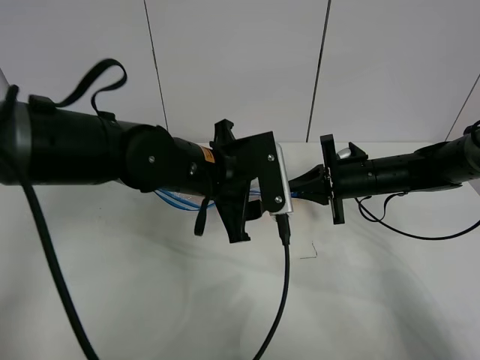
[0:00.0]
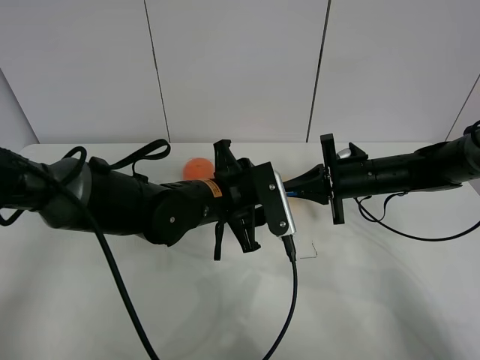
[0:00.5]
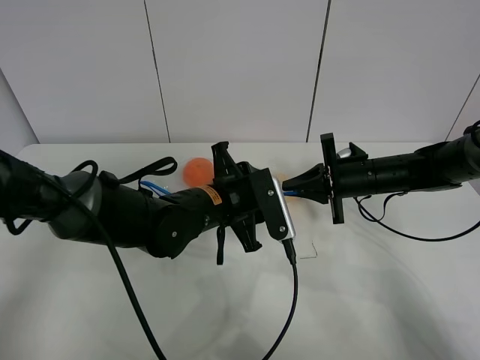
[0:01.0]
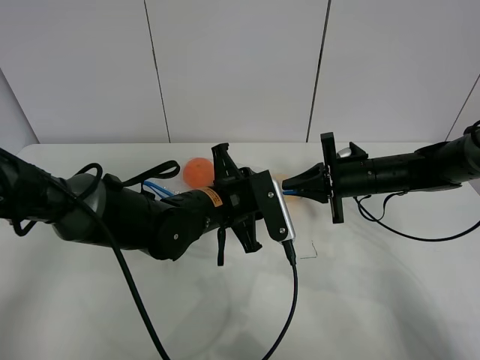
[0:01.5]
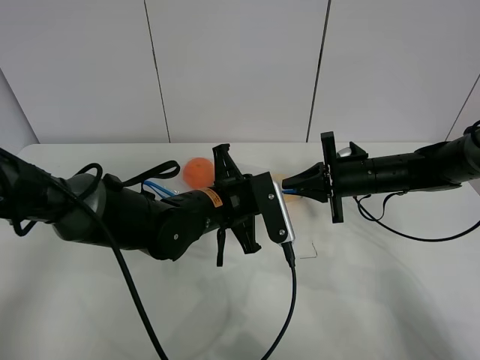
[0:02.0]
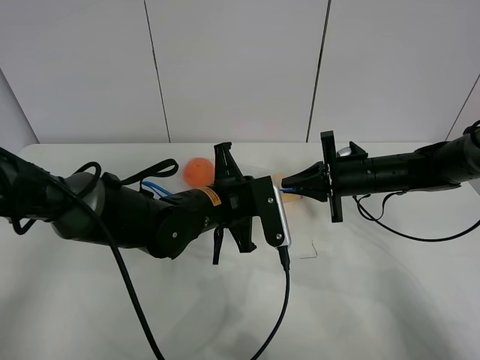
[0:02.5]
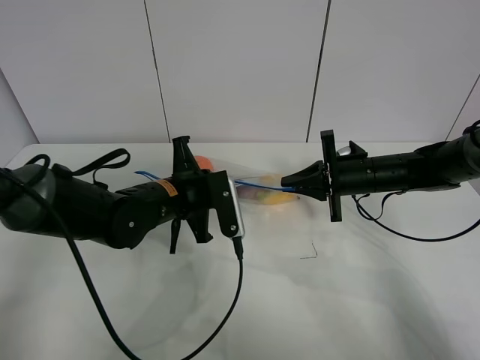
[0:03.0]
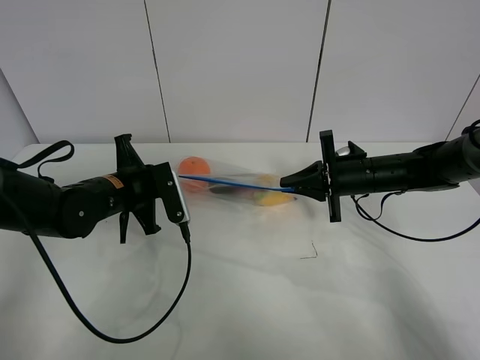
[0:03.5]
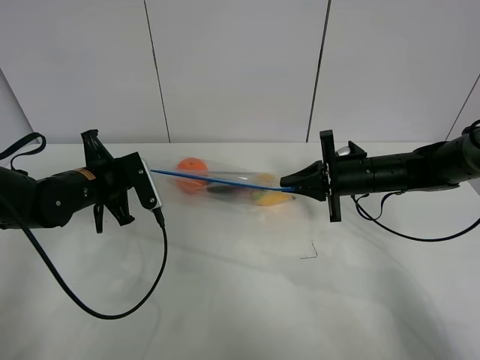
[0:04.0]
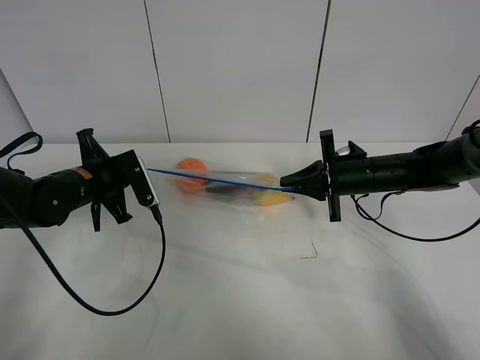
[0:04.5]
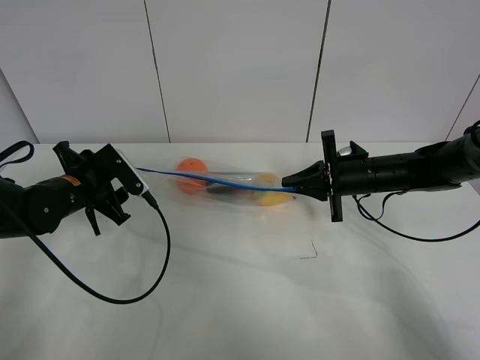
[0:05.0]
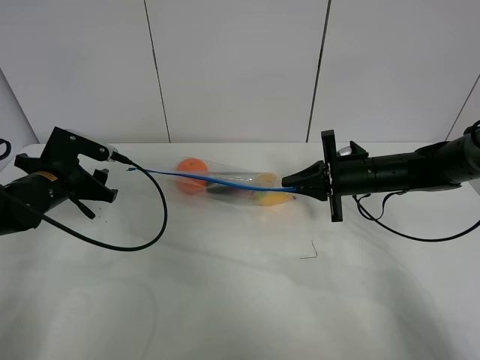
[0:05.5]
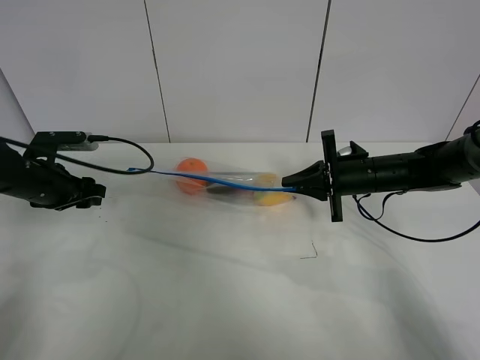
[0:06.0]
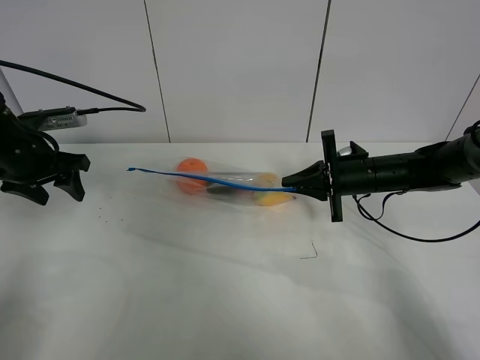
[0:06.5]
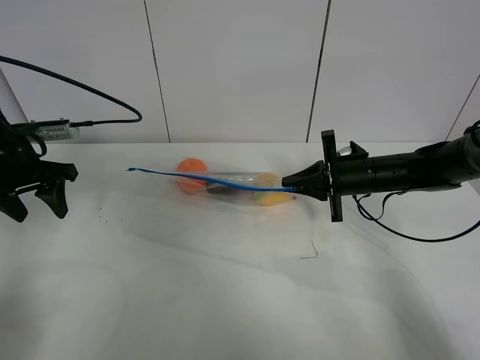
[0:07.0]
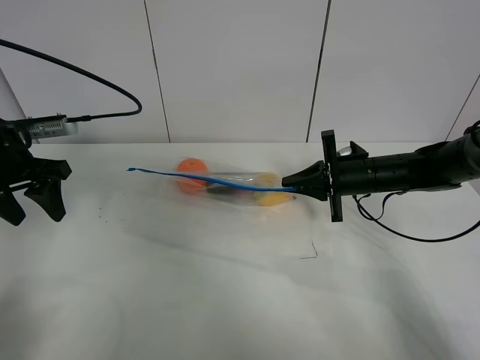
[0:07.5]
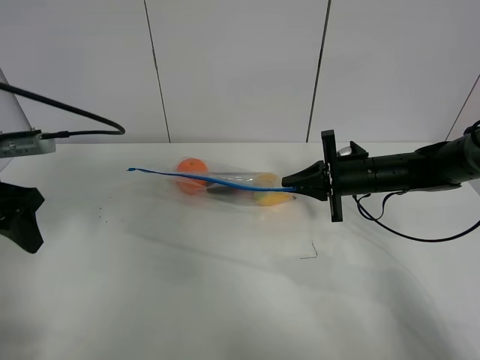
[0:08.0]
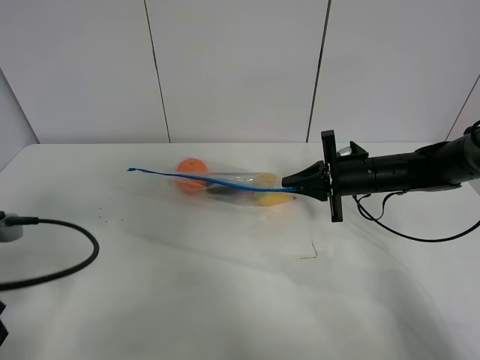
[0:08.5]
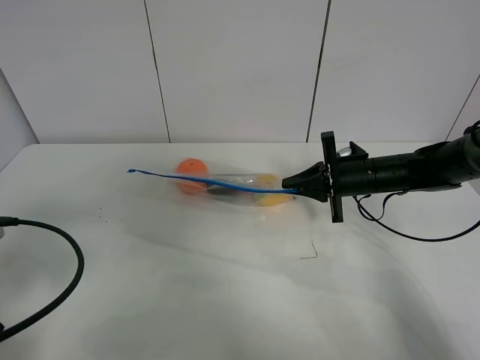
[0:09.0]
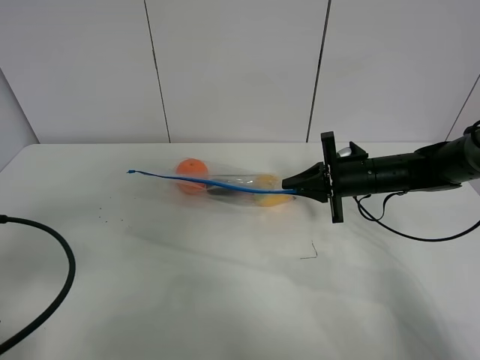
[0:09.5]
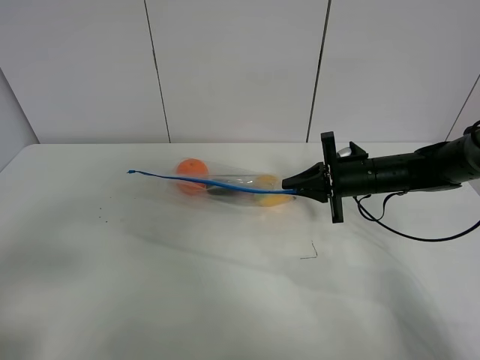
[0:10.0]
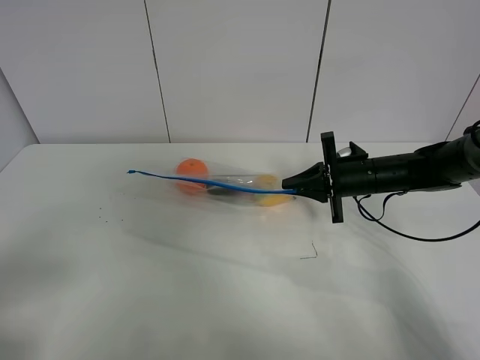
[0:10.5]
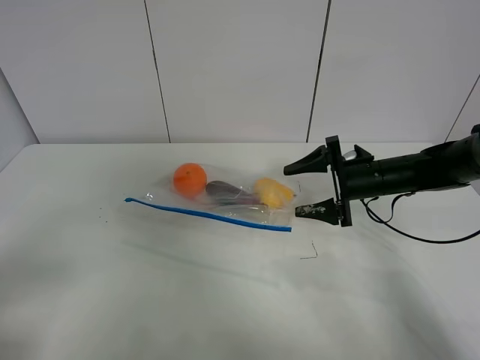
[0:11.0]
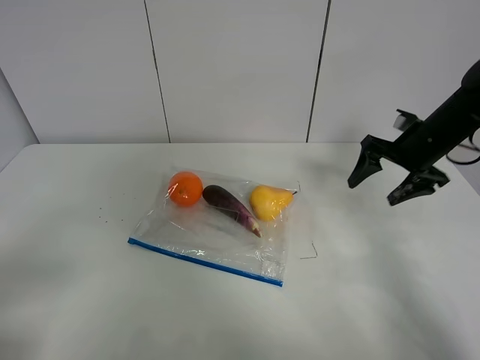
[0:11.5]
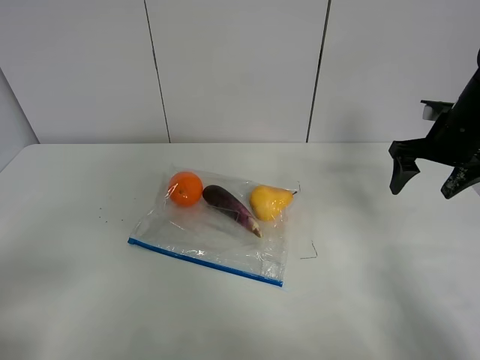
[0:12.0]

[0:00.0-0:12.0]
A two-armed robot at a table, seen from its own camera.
Step, 0:00.0 to 0:05.0: Pull the fruit bag with left gripper.
0:00.0 to 0:02.0: The left gripper heads downward, covering approximately 5 cm, and closes.
0:02.0 to 0:04.0: The left gripper travels to the left by roughly 20 cm.
0:04.0 to 0:06.0: The left gripper goes approximately 10 cm to the left, and opens up.
0:06.0 to 0:08.0: The left gripper goes about 15 cm backward and upward.
0:08.0 to 0:10.0: The left gripper travels backward by roughly 20 cm.
0:10.0 to 0:12.0: The right gripper goes some 15 cm upward and to the right, and opens its fingers.

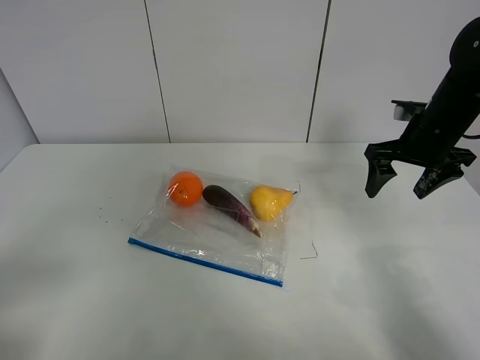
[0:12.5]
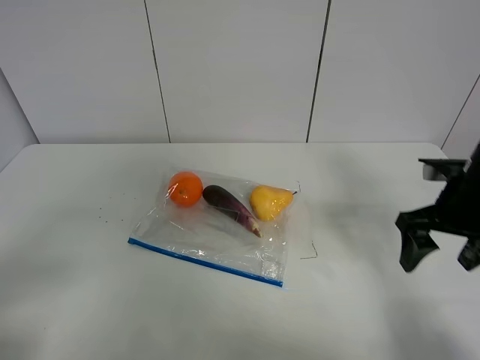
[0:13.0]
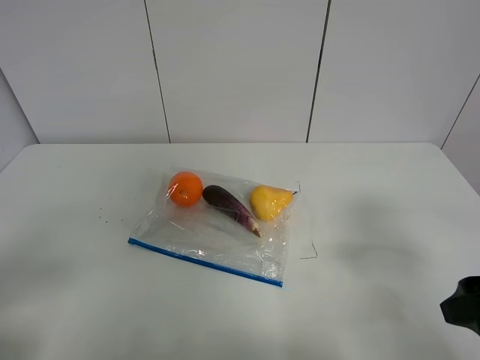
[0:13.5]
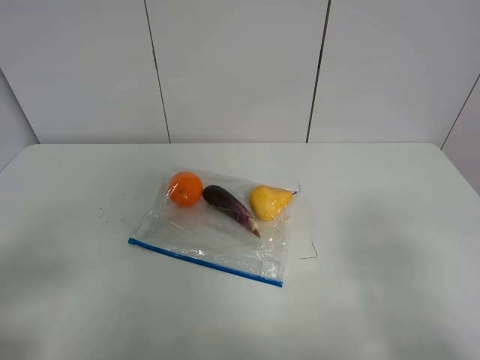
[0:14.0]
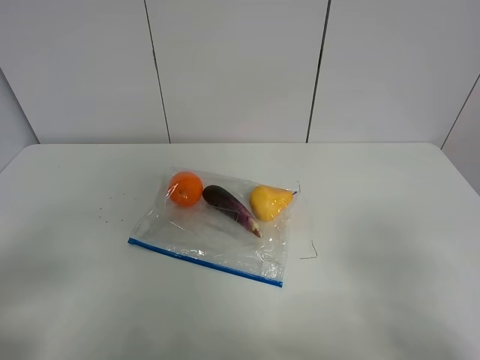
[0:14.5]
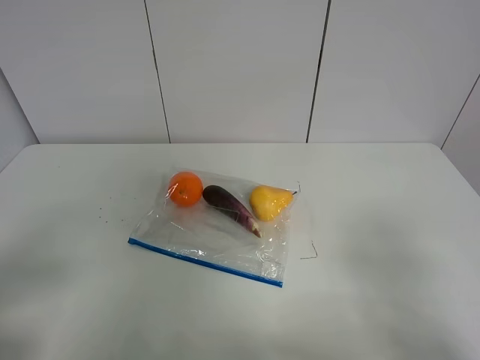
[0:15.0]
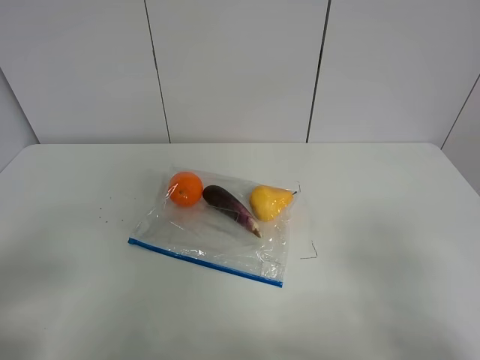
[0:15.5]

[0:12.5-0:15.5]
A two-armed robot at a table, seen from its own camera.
0:12.5 to 0:14.0: The right gripper travels backward by about 30 cm.
